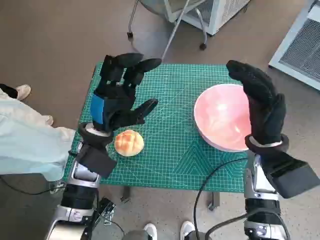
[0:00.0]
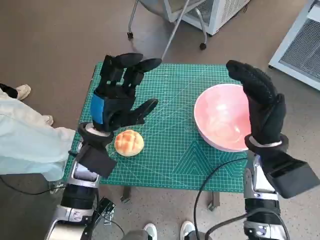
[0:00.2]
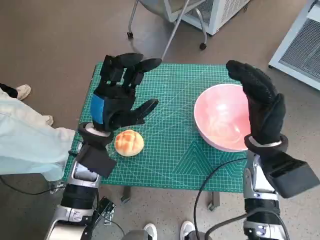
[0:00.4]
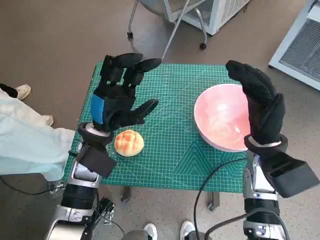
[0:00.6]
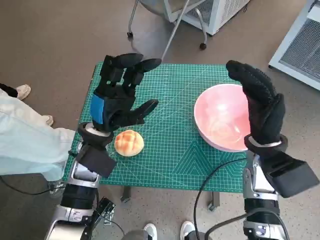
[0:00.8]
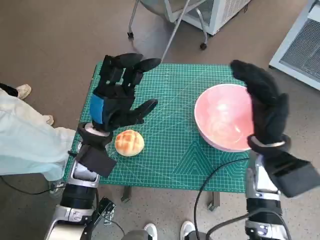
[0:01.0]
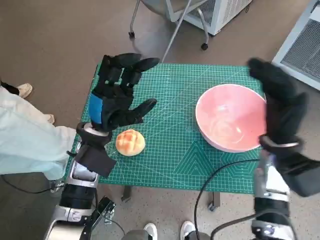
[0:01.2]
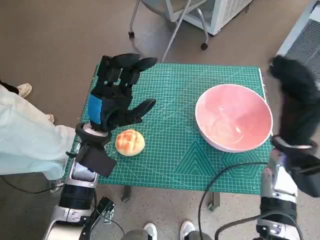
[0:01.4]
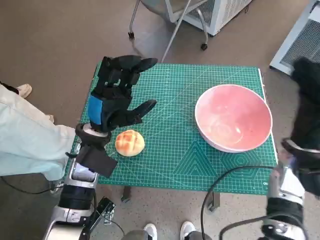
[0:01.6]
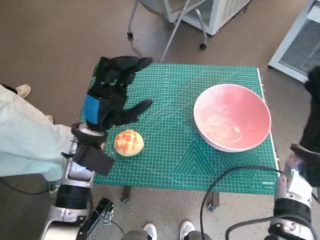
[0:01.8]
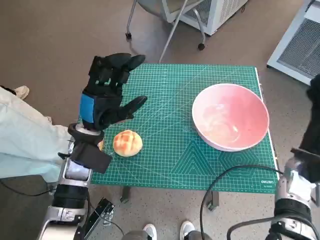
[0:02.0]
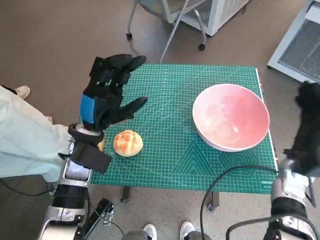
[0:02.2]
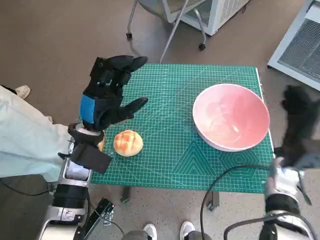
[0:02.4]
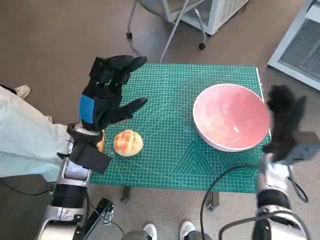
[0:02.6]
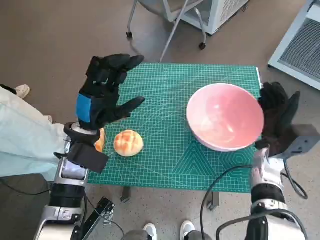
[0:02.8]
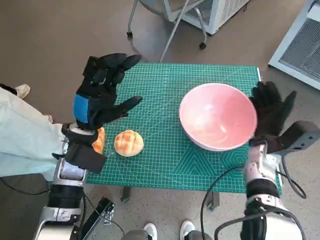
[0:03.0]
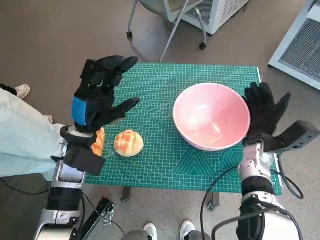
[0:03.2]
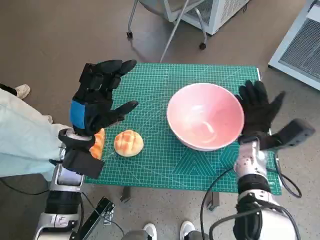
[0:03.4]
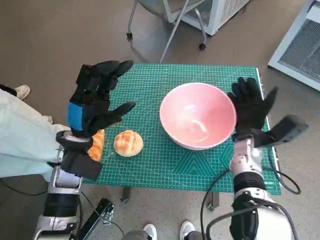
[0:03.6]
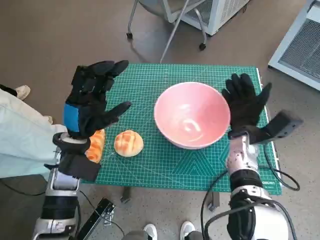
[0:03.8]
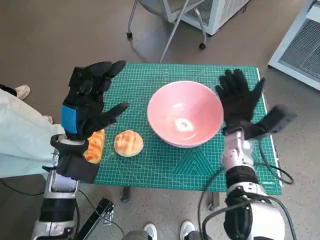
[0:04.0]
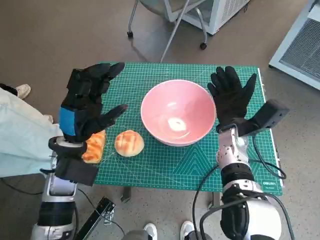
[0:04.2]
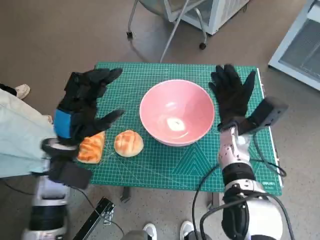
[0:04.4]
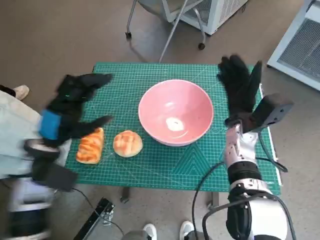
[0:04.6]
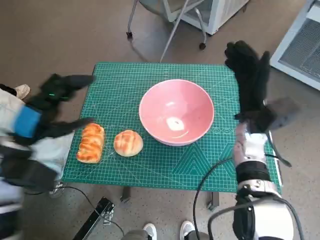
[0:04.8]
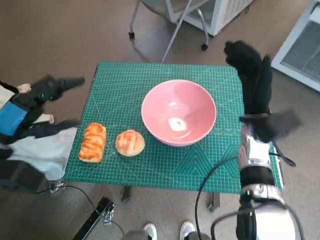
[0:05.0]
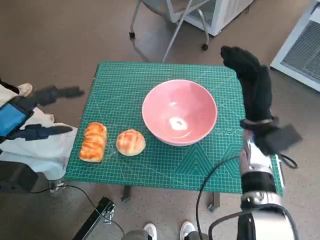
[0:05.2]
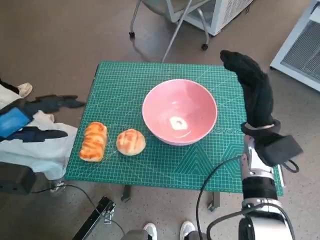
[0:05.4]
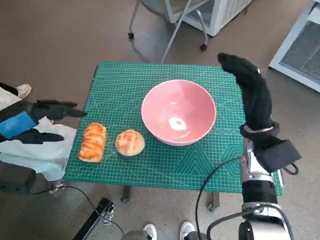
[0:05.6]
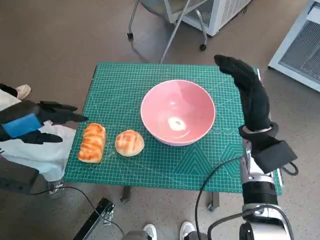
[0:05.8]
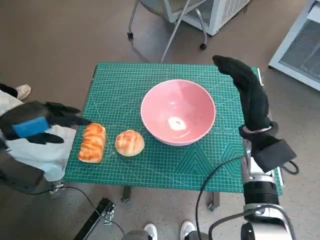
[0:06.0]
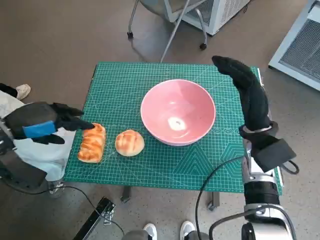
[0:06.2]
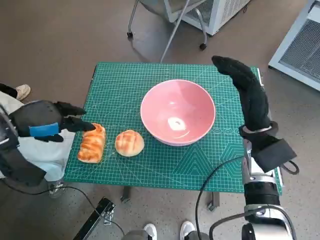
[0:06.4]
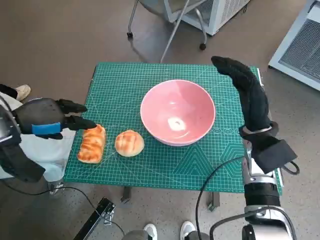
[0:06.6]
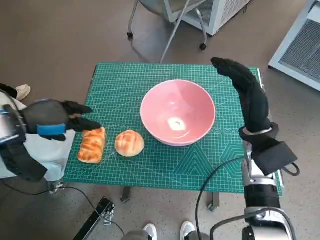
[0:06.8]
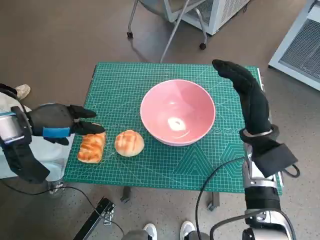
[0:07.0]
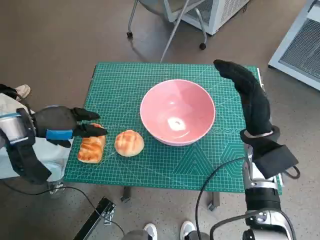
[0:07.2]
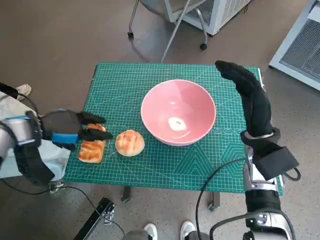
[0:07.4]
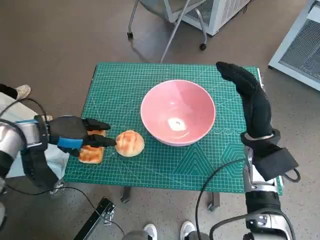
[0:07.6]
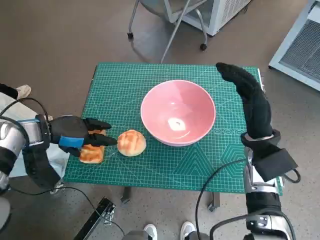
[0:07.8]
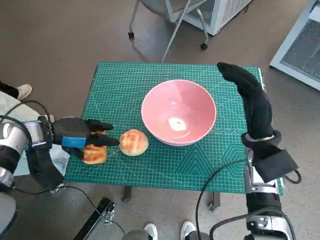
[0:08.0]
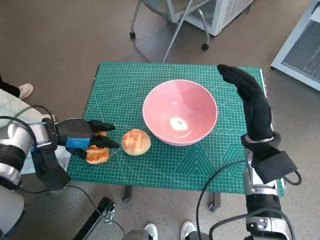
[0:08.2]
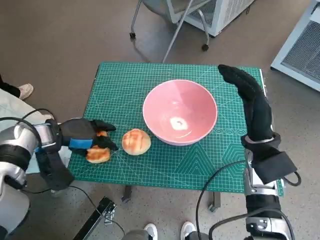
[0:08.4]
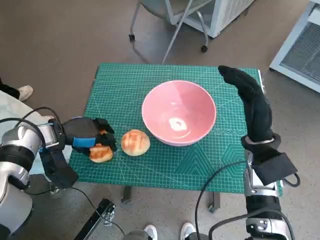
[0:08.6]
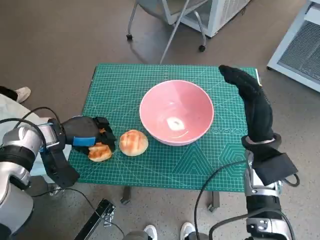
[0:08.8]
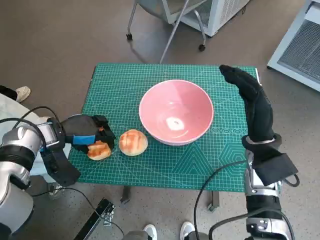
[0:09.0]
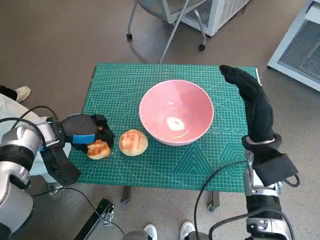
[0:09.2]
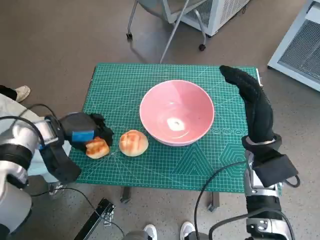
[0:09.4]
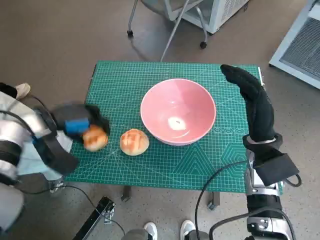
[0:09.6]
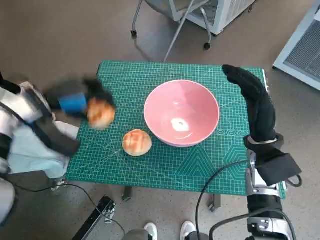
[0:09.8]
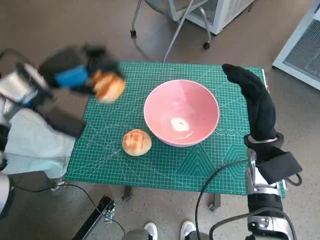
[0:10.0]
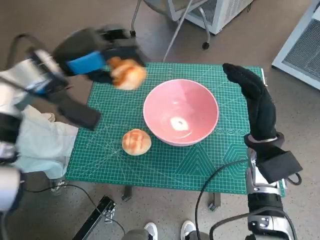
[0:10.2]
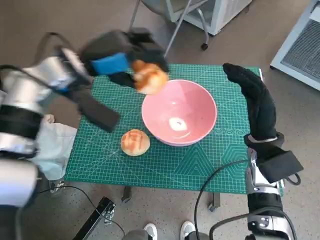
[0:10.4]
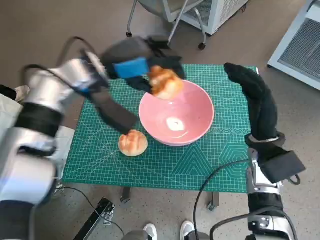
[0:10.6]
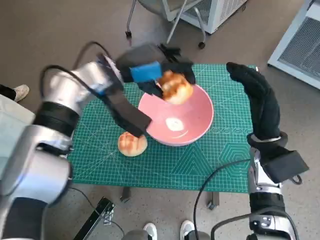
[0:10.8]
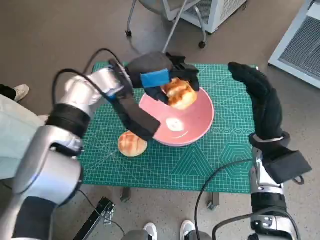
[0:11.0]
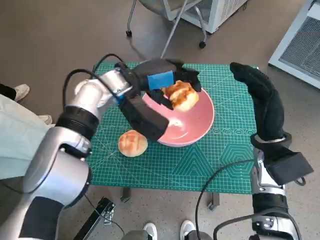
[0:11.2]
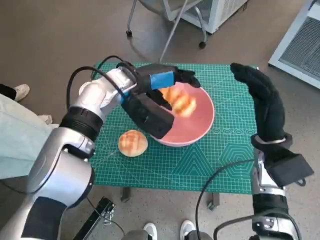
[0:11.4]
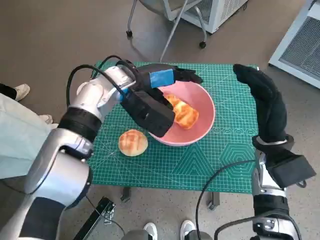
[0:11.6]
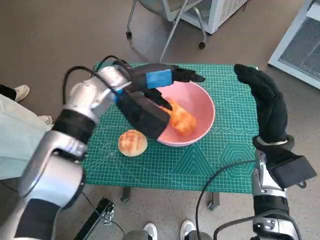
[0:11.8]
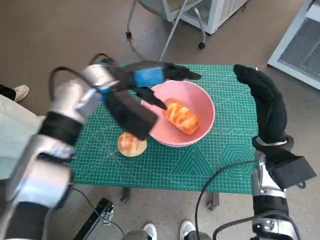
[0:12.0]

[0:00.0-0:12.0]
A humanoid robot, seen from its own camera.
Task of the whole recording: Push the bowl to the center of the table and put the bread into the bowl.
Step, 0:00.0 to 0:04.2: Move the pink bowl to the center of table with right hand.
Step, 0:04.4 to 0:09.2: Grasp the long bread with left hand.
Step, 0:09.4 to 0:11.8: Place the long bread in pink bowl with left hand.
0:01.6 to 0:03.0: The right hand heads downward, covering roughly 5 cm.
0:03.0 to 0:04.4: The right hand moves to the left, approximately 5 cm.
0:04.4 to 0:06.0: The right hand shifts by some 5 cm; the left hand heads to the left and upward, covering about 15 cm.
0:06.0 to 0:07.6: The left hand heads downward and forward, covering roughly 10 cm.
0:07.6 to 0:09.0: The hands stay close to where they were, moving slightly.
0:09.0 to 0:10.4: The left hand shifts approximately 20 cm upward and to the right.
0:10.4 to 0:12.0: The left hand moves to the right, some 5 cm.

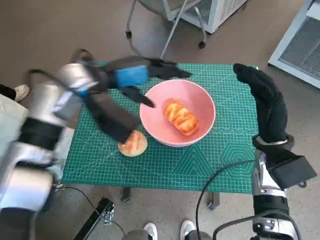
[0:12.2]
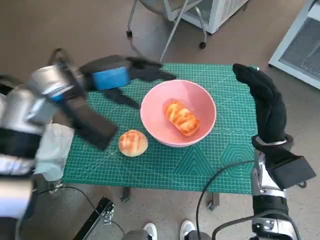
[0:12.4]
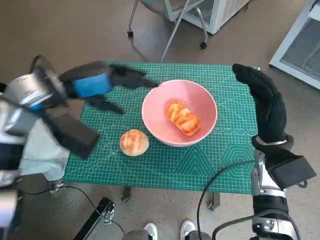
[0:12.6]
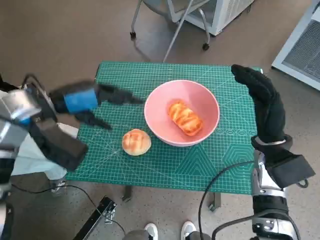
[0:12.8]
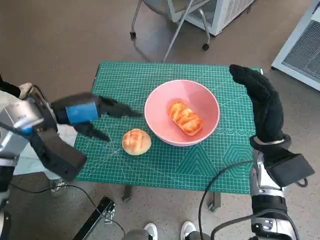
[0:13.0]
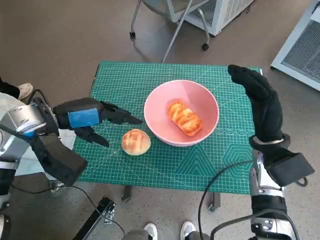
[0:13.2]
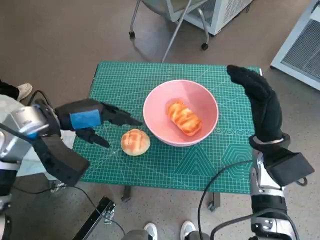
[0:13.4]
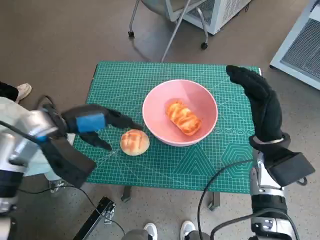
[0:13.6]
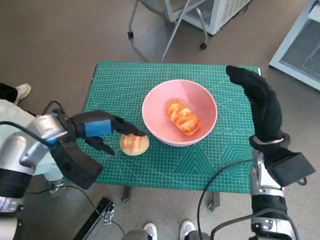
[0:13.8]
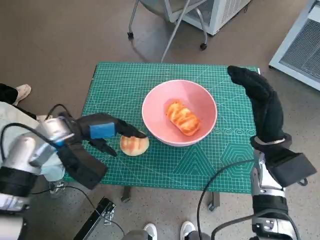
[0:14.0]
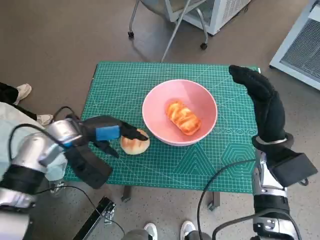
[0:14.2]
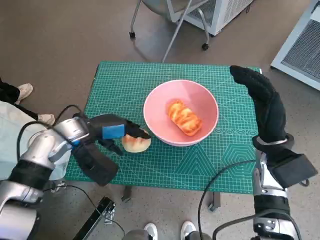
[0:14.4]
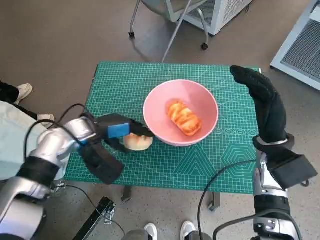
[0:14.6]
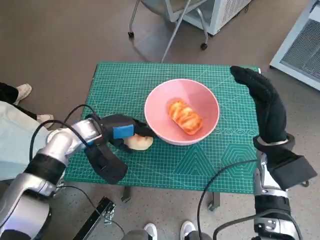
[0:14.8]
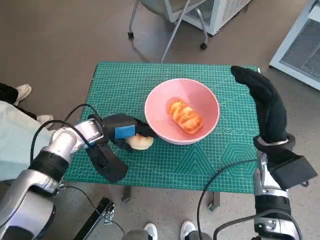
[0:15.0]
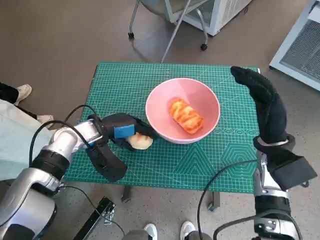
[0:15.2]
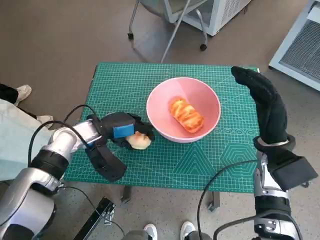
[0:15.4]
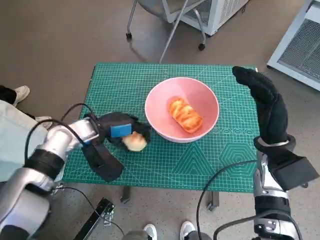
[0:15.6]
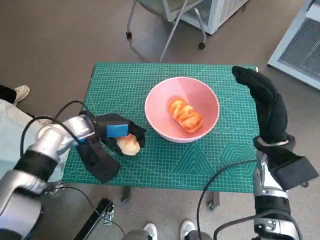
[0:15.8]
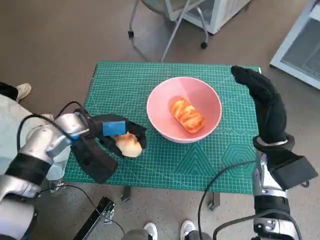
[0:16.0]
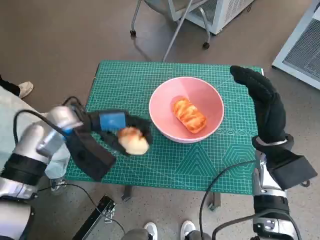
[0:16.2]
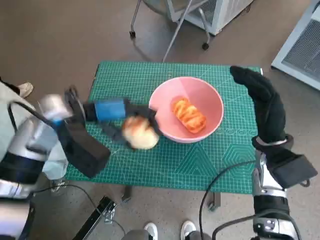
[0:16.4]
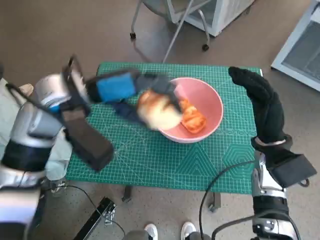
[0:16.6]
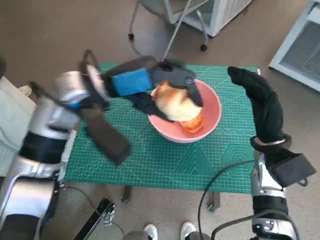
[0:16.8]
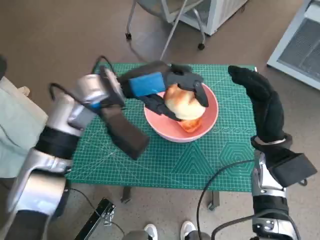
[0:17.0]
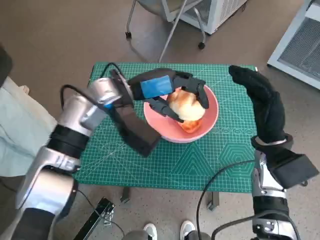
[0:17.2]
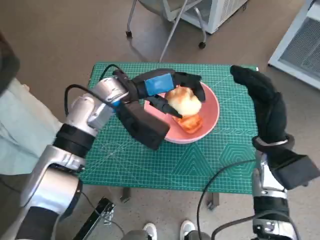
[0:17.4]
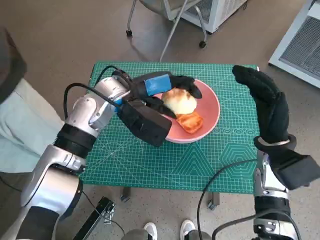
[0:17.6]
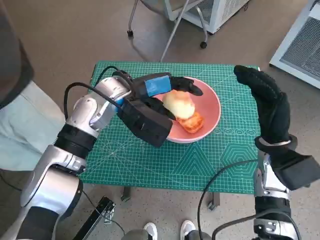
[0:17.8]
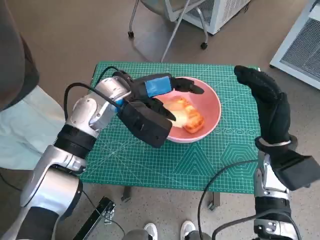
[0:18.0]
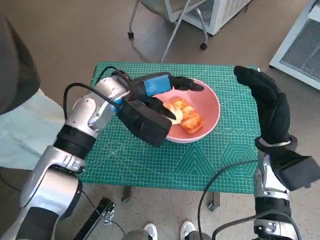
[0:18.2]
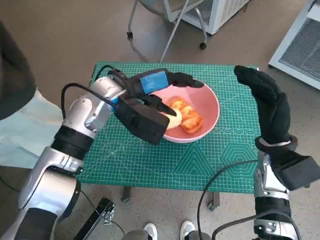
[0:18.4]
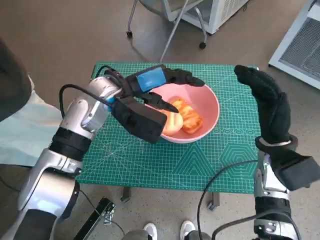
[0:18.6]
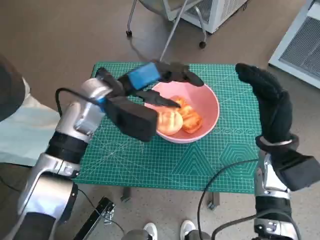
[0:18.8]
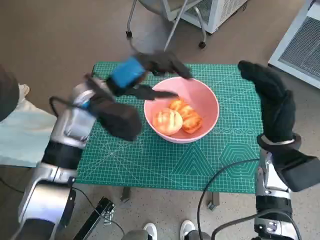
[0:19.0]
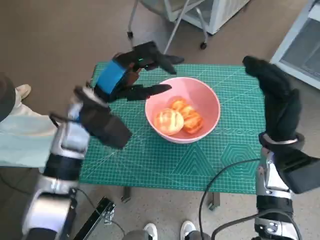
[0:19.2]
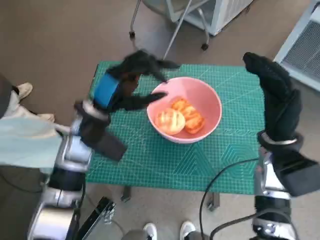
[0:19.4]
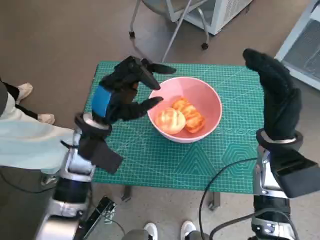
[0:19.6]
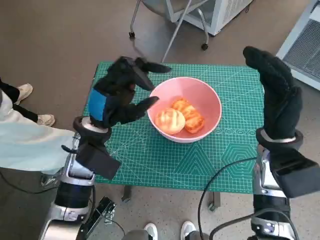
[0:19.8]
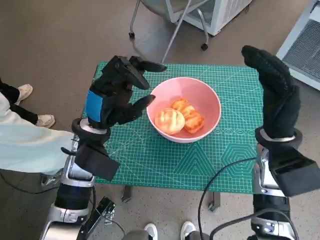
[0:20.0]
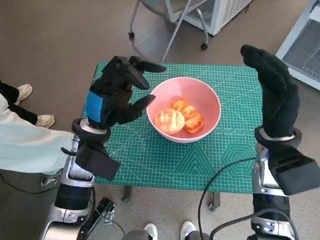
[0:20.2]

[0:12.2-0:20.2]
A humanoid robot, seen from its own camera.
Task of the whole recording: Push the bowl to the center of the table and put the bread into the bowl.
Step, 0:12.2 to 0:15.4: Grasp the round bread with left hand.
Step, 0:15.6 to 0:18.6: Place the round bread in pink bowl with left hand.
0:12.2 to 0:13.8: The left hand shifts some 10 cm to the left, downward and backward.
0:13.8 to 0:15.4: The left hand heads downward, covering roughly 10 cm.
0:15.4 to 0:17.0: The left hand shifts some 15 cm upward and to the right.
0:18.6 to 0:20.2: The left hand heads backward and downward, covering about 10 cm.

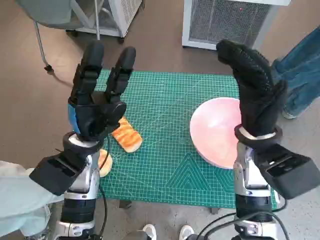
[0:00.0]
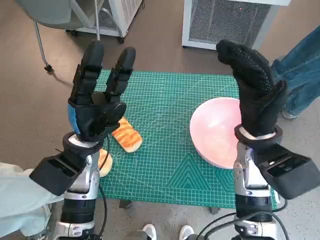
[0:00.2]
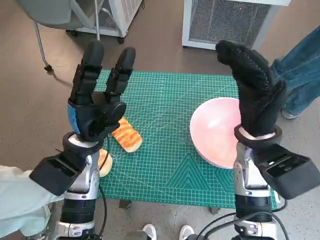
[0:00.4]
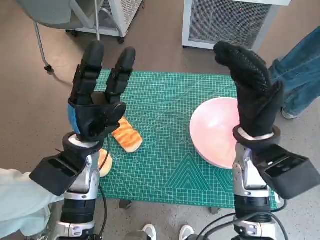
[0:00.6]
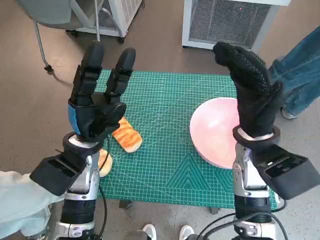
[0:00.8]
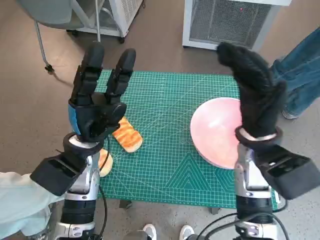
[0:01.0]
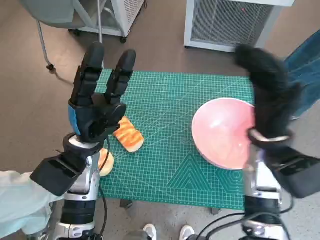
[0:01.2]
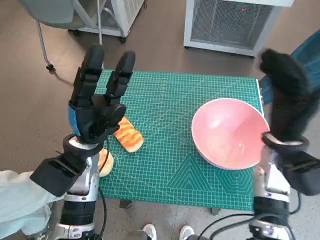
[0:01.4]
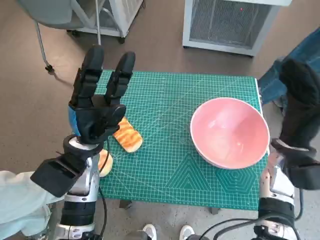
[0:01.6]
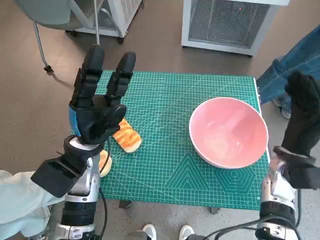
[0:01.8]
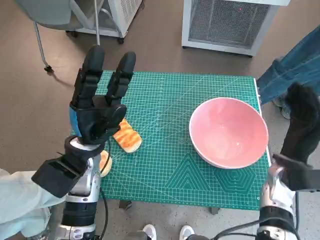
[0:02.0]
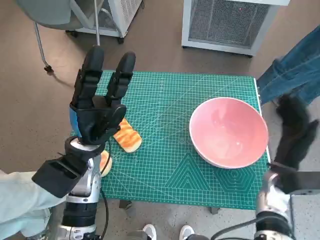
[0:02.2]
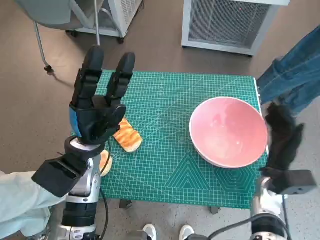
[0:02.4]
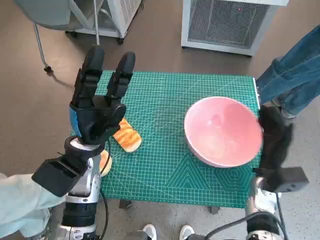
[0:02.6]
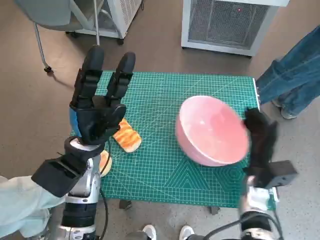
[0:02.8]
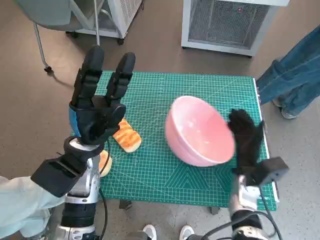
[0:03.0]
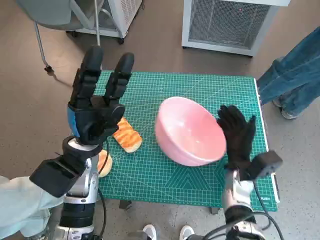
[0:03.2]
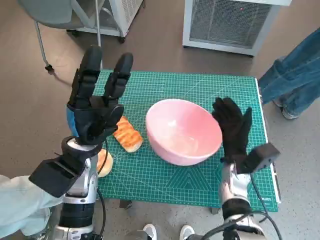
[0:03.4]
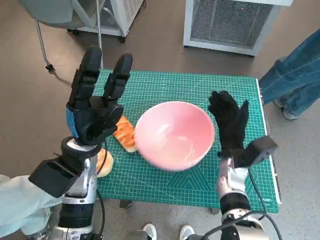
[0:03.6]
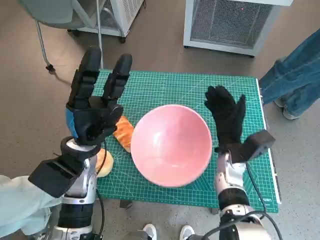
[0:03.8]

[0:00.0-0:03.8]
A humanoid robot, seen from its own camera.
Task of the whole recording: Push the bowl to the center of the table and put the bread into the bowl.
0:01.2 to 0:02.6: The right hand moves downward, roughly 15 cm.
0:02.6 to 0:03.8: The right hand moves to the left, approximately 10 cm.
